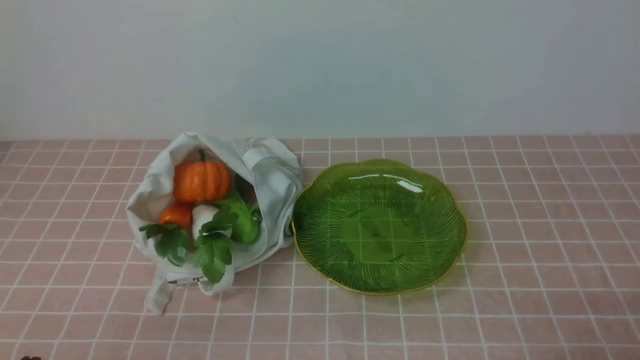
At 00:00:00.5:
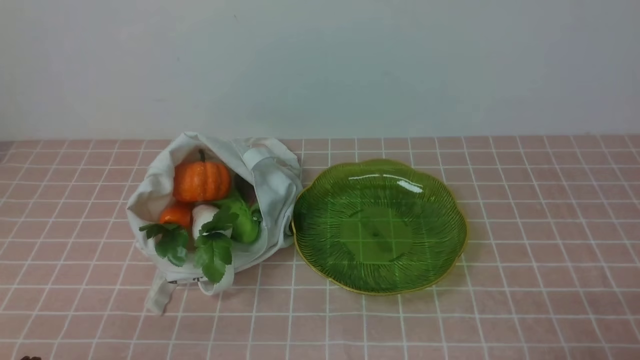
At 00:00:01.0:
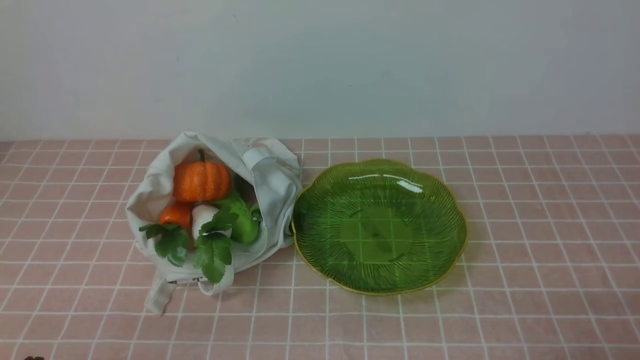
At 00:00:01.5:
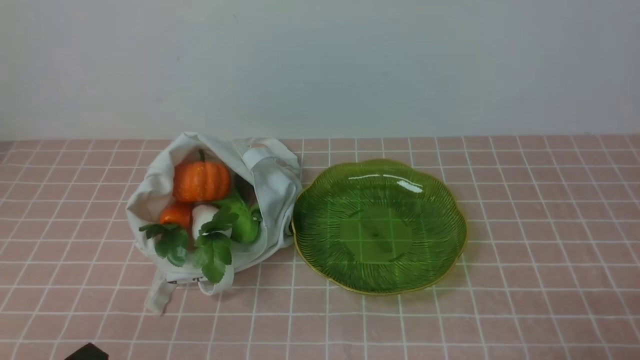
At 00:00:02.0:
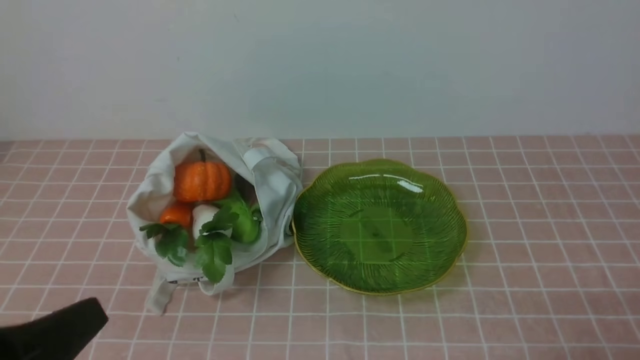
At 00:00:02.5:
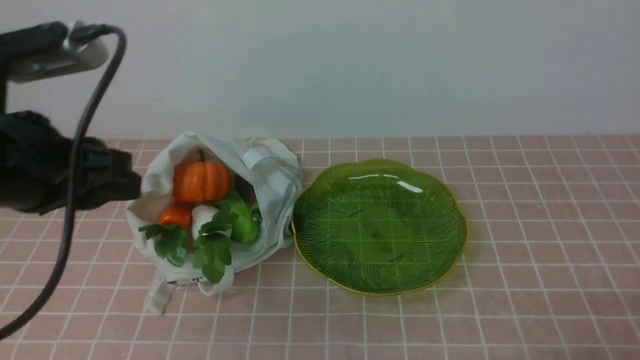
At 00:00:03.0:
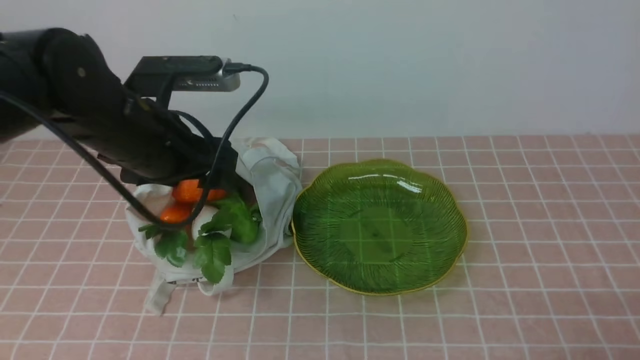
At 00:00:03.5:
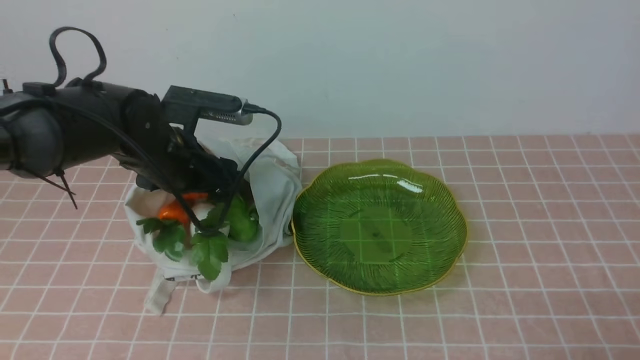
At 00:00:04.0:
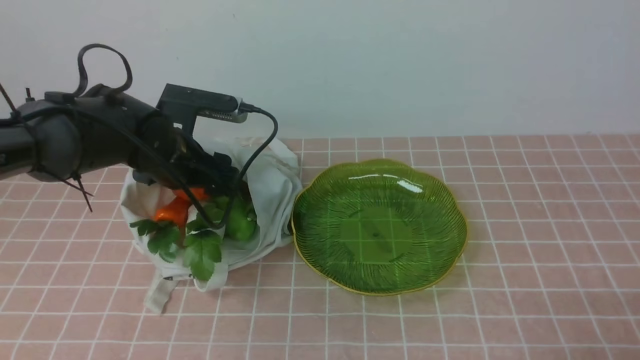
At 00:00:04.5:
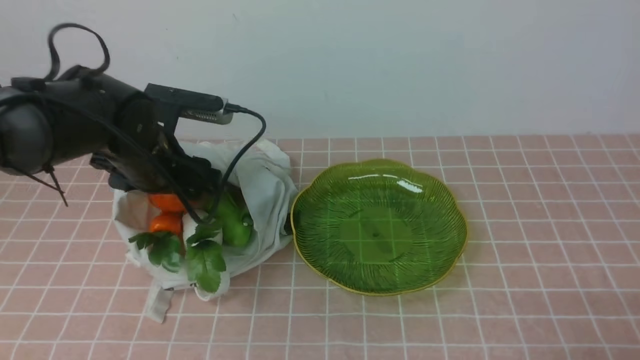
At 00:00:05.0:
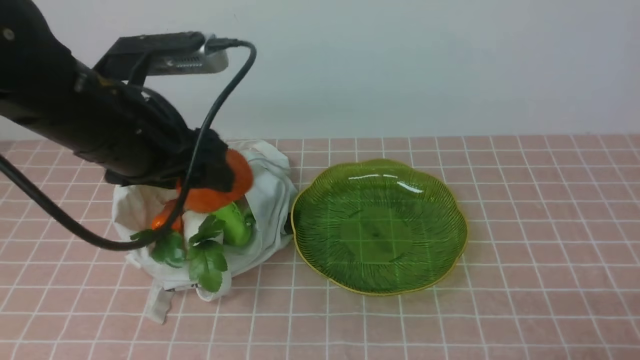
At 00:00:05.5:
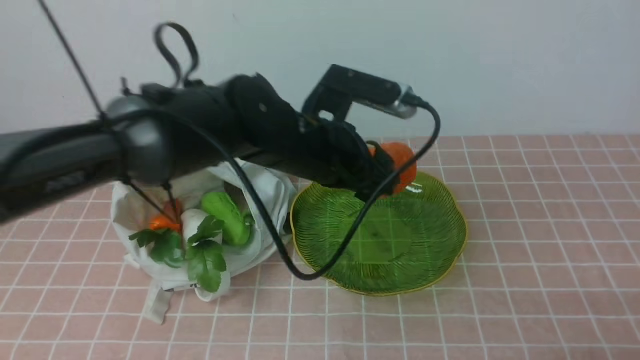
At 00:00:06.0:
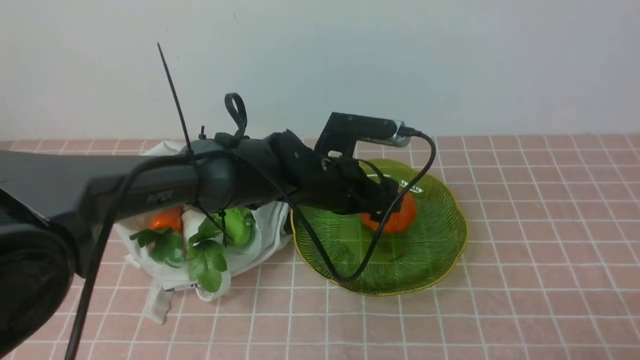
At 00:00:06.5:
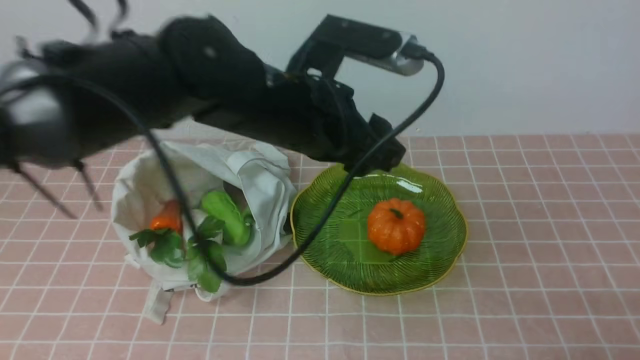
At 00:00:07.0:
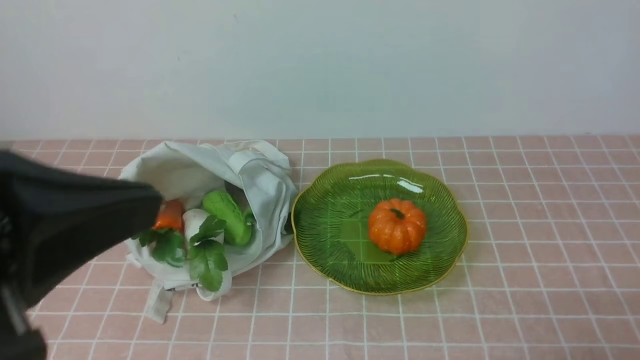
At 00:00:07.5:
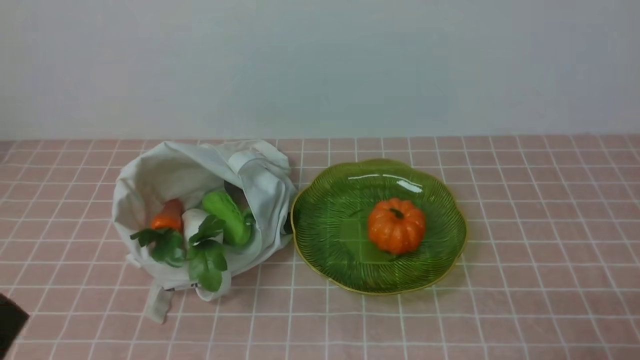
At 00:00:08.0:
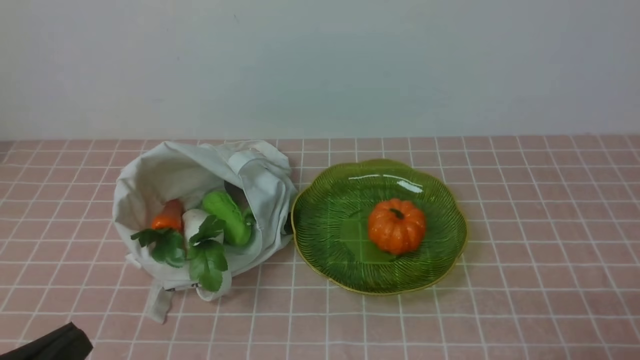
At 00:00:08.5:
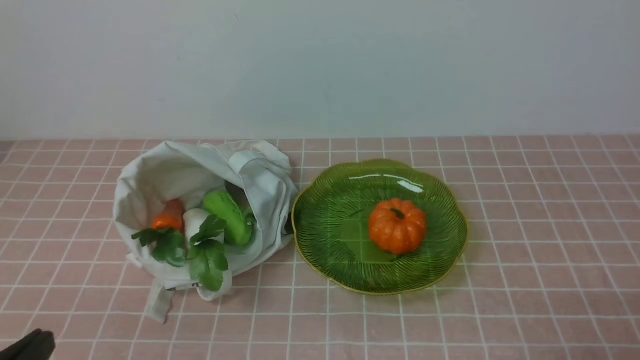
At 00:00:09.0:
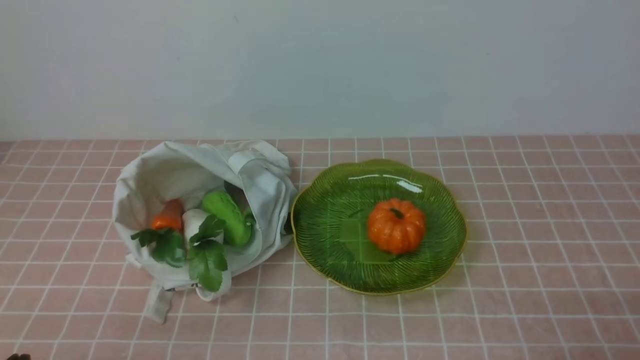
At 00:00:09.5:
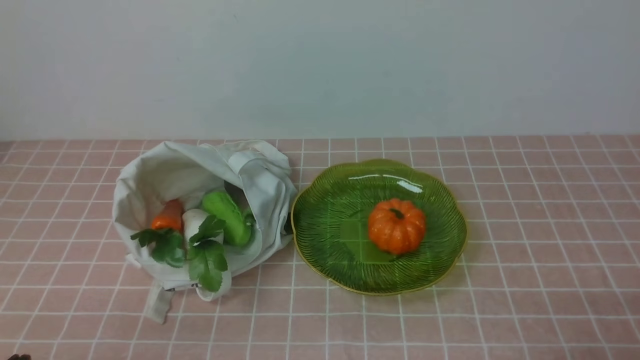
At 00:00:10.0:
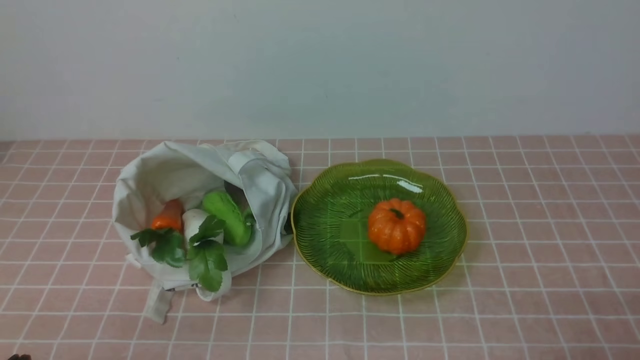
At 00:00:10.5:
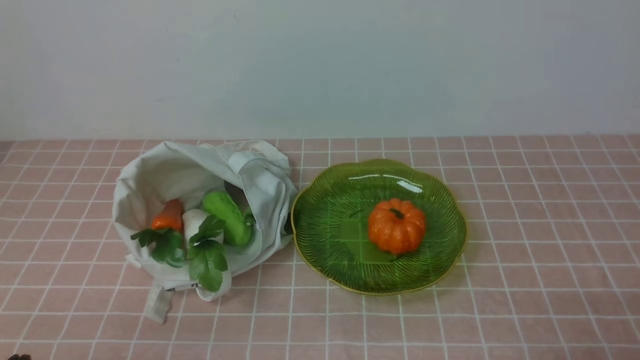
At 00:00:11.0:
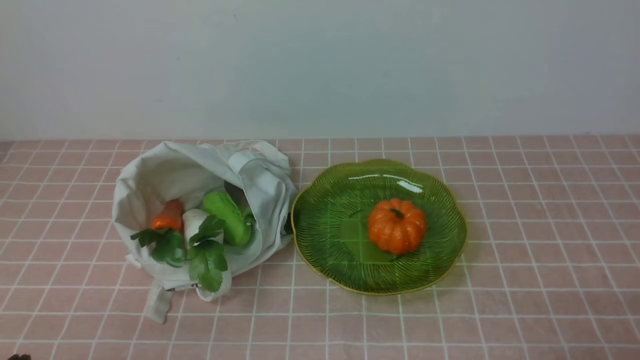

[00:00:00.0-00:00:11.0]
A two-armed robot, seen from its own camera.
Task of the whole recording: take vegetables from bag on pink coffee tablecloth place on plate.
Step, 00:00:00.0 to 00:00:04.0: Grasp the pumpkin with left gripper.
Step, 00:00:04.5 to 00:00:06.0: Place the pumpkin on the plate with left gripper.
00:00:00.0 to 00:00:02.0: The left gripper shifts approximately 10 cm upward.
00:00:02.0 to 00:00:03.5: The left gripper goes roughly 30 cm forward, and opens up.
00:00:03.5 to 00:00:05.5: The left gripper moves to the right, about 15 cm.
00:00:05.5 to 00:00:07.5: The left gripper travels backward and to the left by approximately 40 cm, and closes up.
00:00:09.0 to 00:00:11.0: Neither gripper changes place.

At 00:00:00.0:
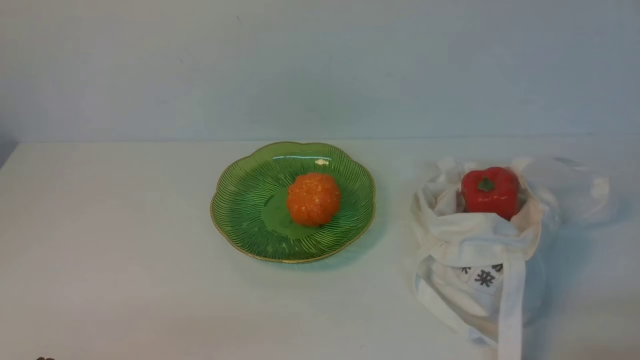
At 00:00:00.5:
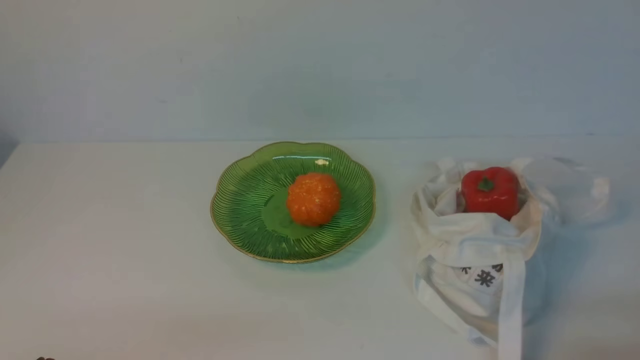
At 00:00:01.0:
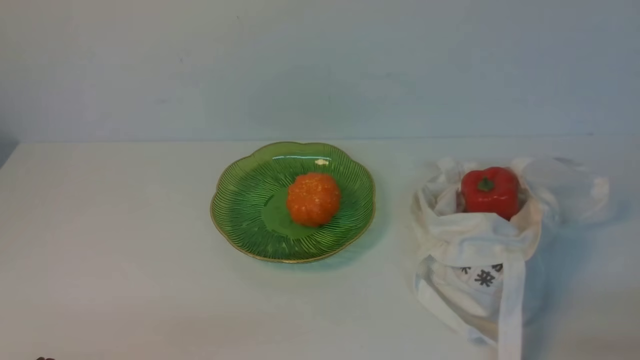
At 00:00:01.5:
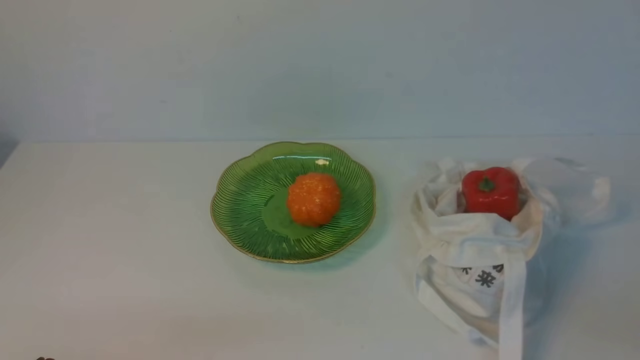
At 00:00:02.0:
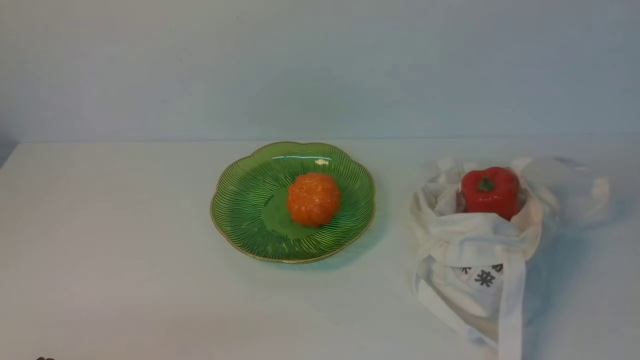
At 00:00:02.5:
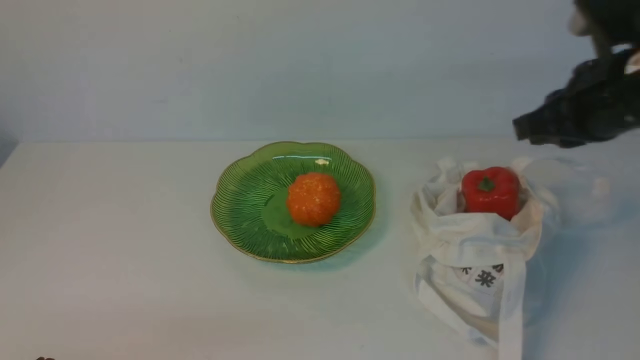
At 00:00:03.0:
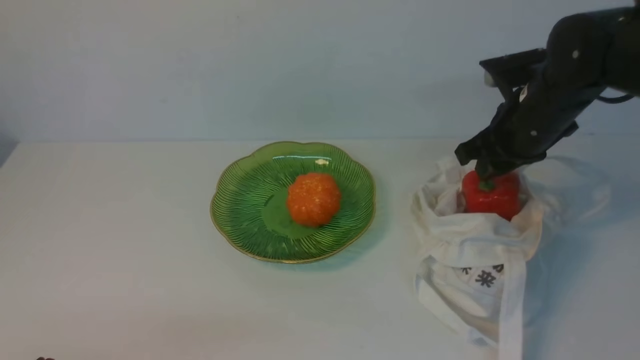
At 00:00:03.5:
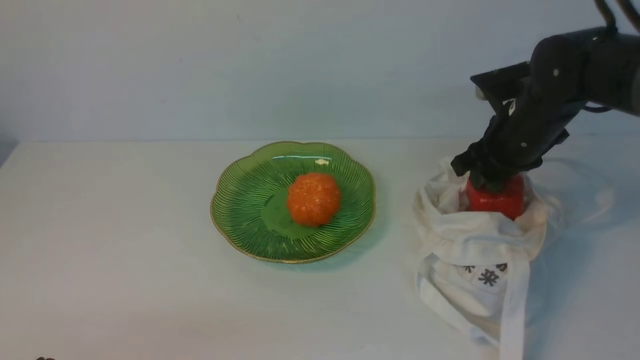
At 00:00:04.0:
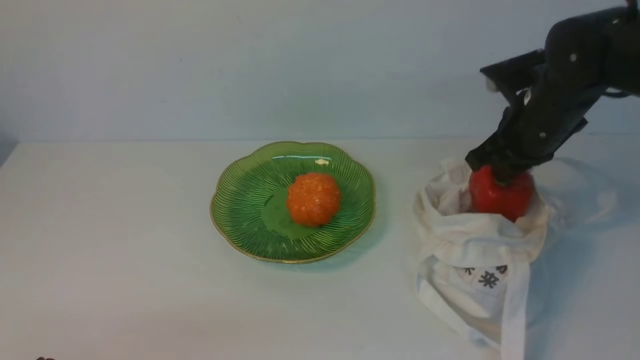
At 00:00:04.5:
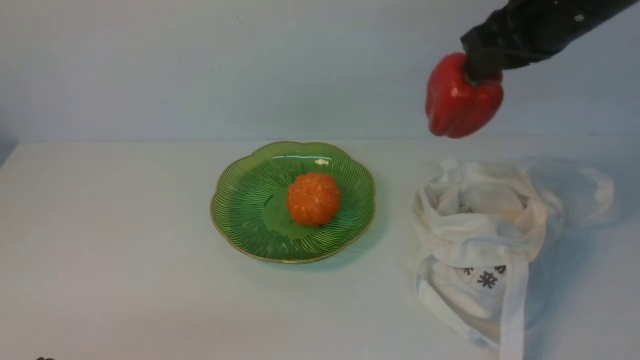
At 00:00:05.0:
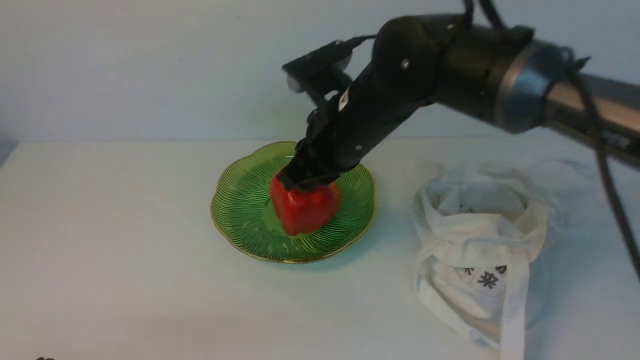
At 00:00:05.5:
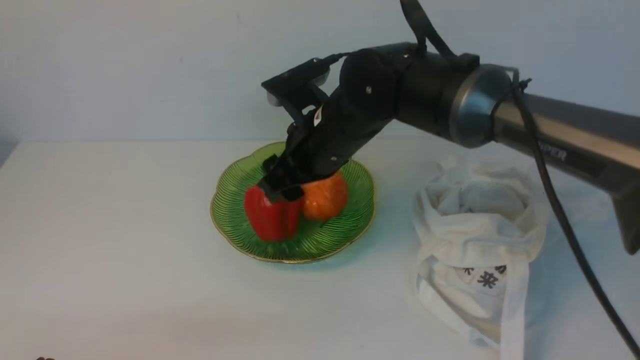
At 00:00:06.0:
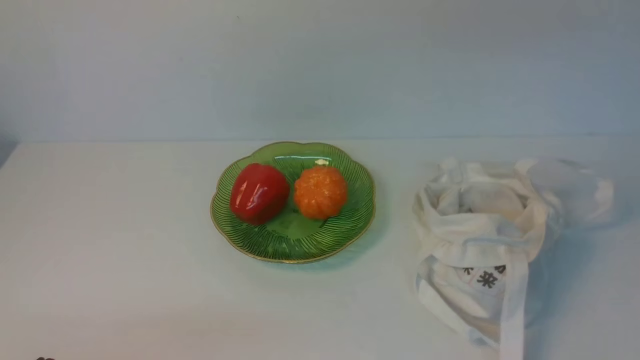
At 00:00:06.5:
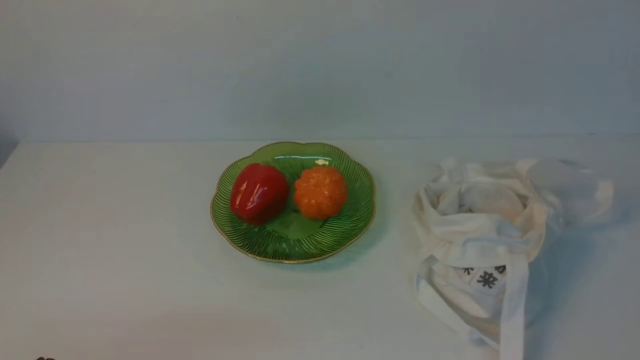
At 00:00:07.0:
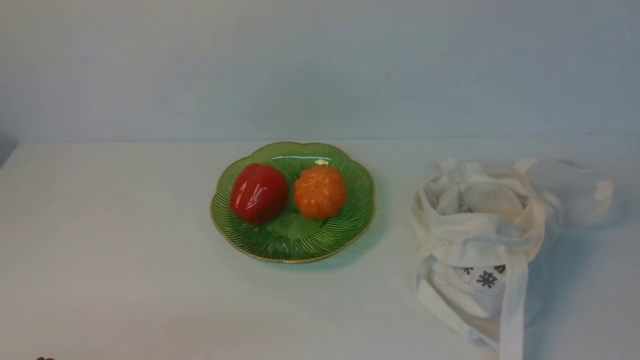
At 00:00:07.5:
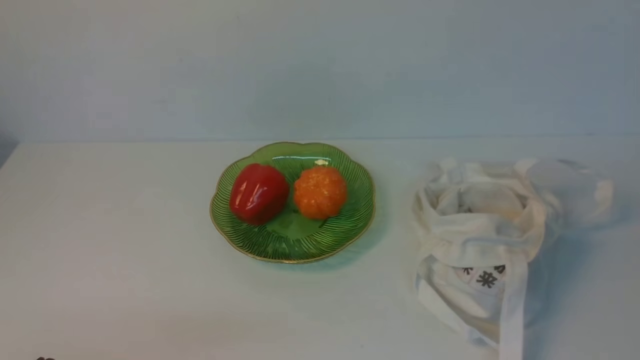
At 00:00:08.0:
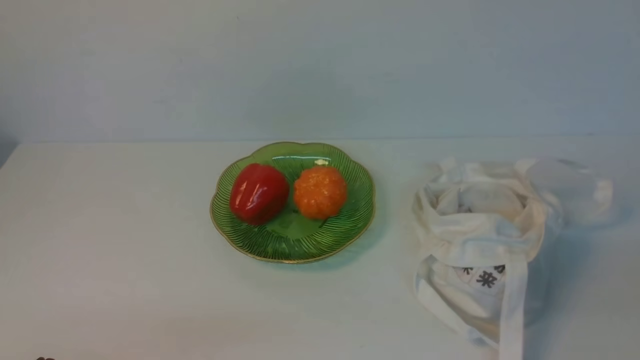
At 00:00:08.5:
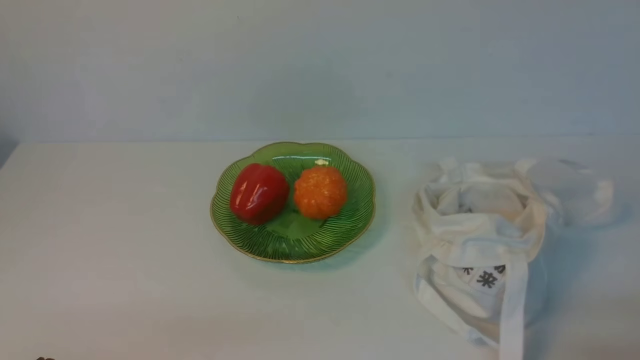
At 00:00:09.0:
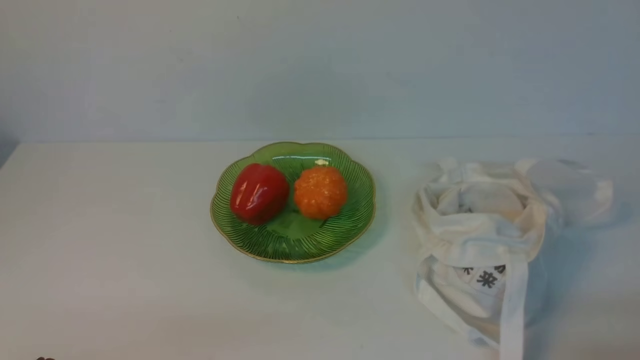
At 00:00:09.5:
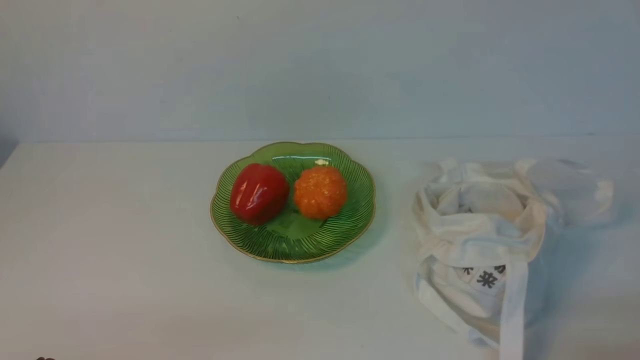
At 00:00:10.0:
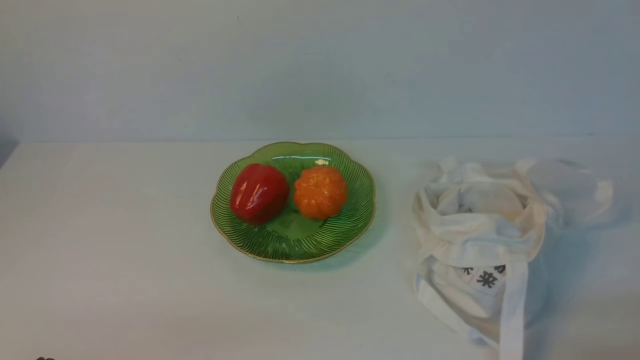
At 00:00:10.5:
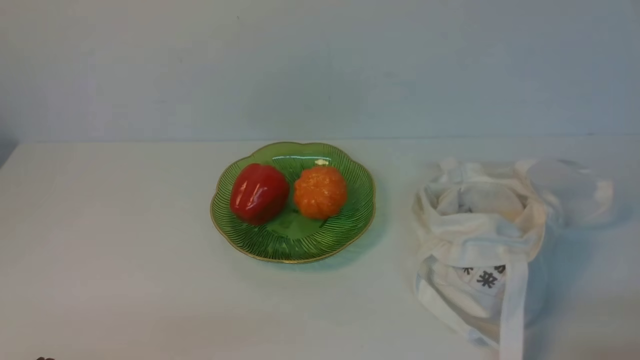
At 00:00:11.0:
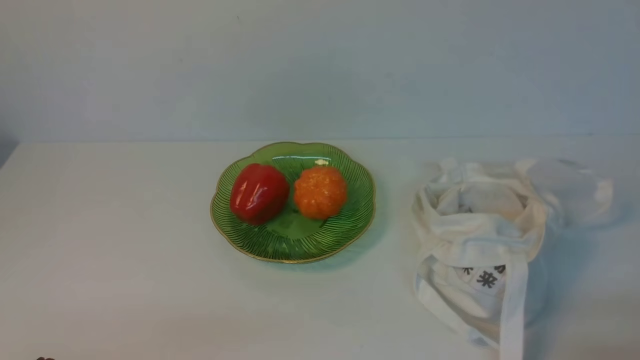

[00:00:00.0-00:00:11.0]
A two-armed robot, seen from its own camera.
Task of the whole recording: take vegetables from cloth bag on white table place on plate.
Step, 00:00:00.0 to 00:00:03.5: Grasp the bell pepper with right gripper.
Step, 00:00:04.0 to 00:00:05.5: Place the bell pepper on the plate with right gripper.
00:00:02.0 to 00:00:03.5: The right gripper travels forward and downward by some 30 cm, and opens its fingers.
00:00:03.5 to 00:00:05.5: The right gripper heads to the left, covering approximately 20 cm, and opens its fingers.
00:00:05.5 to 00:00:07.5: The right gripper is displaced backward and to the right by roughly 40 cm, and closes.
00:00:09.0 to 00:00:11.0: The two grippers keep their place.
